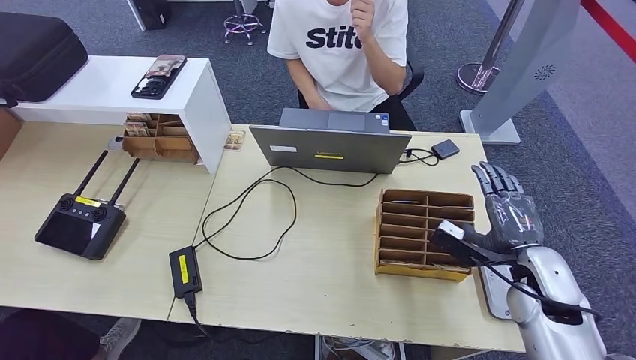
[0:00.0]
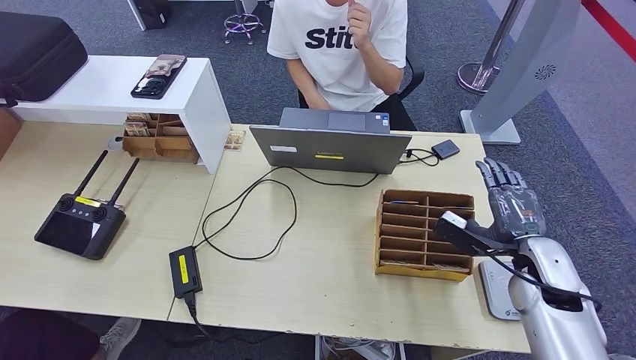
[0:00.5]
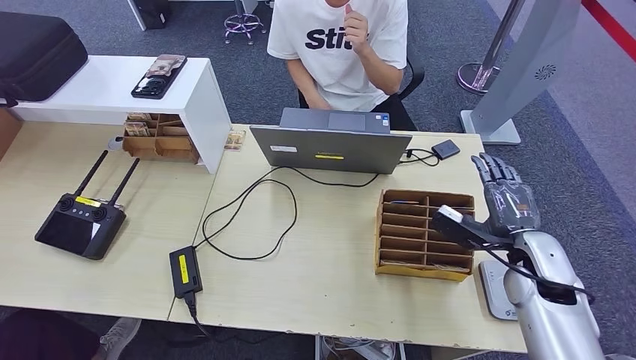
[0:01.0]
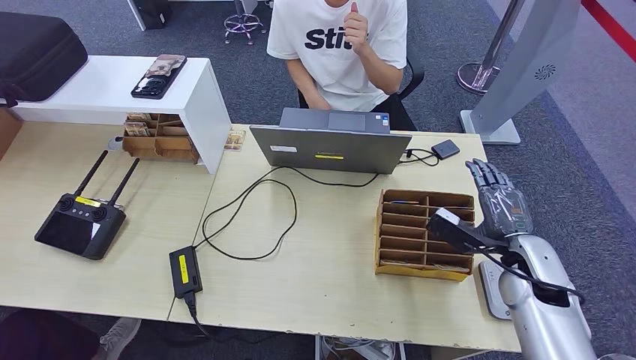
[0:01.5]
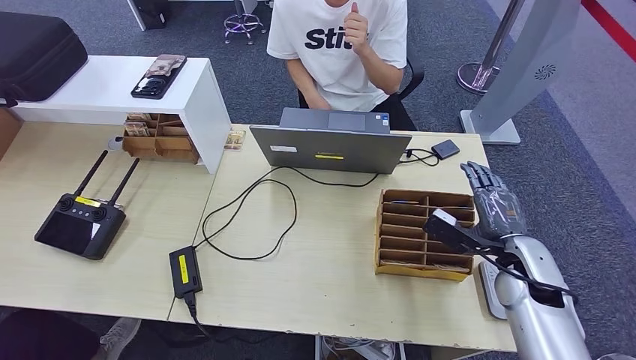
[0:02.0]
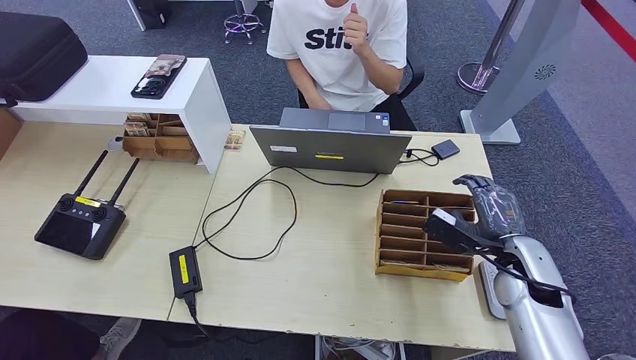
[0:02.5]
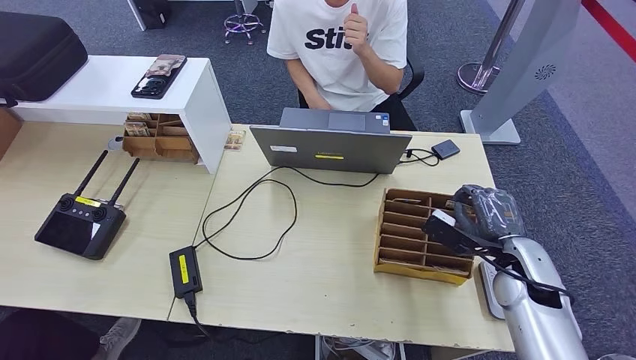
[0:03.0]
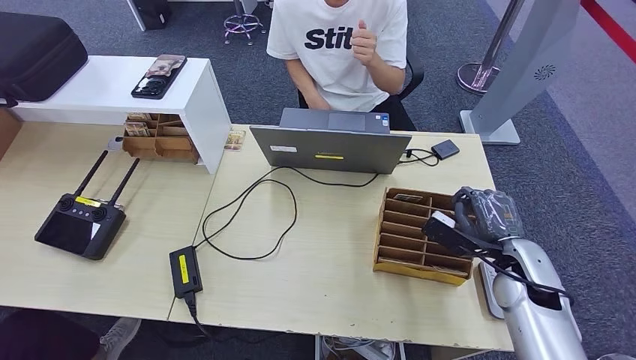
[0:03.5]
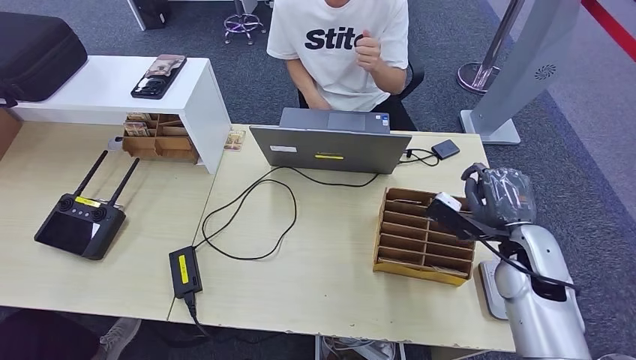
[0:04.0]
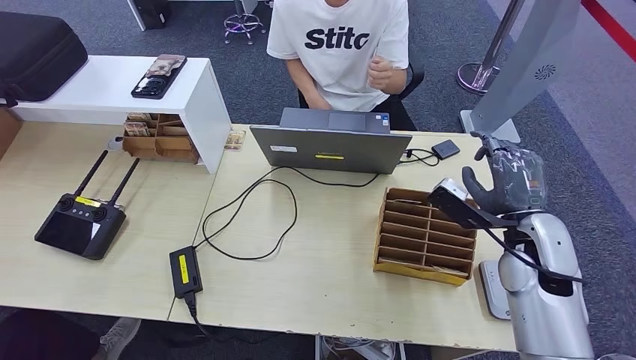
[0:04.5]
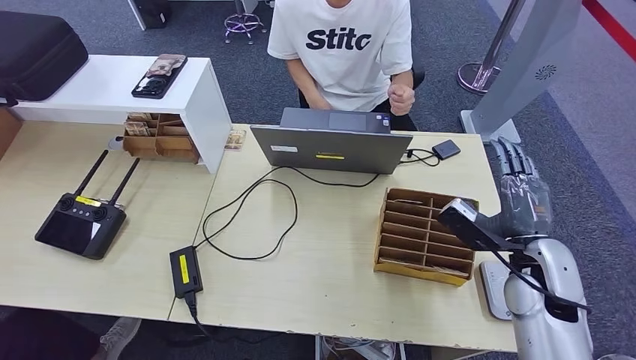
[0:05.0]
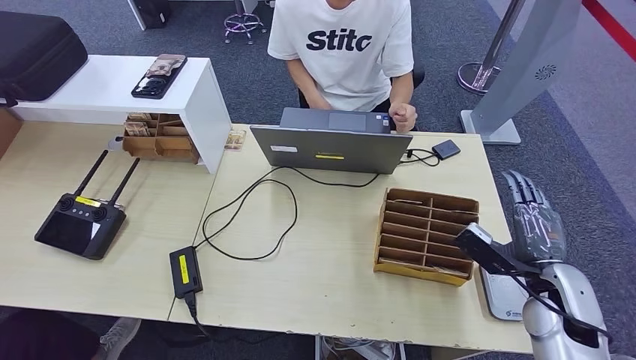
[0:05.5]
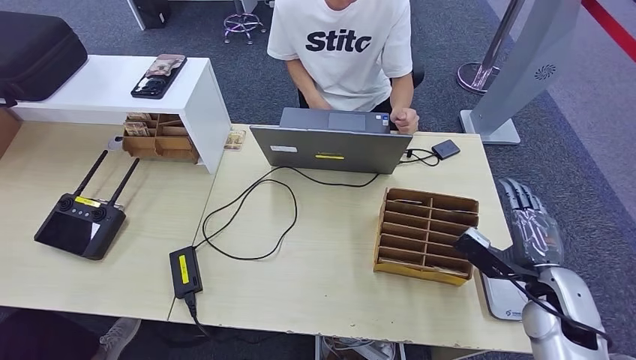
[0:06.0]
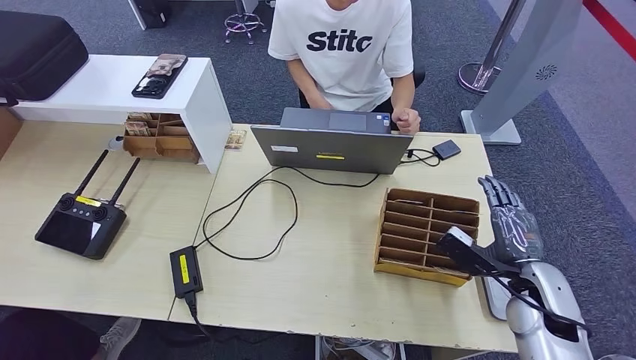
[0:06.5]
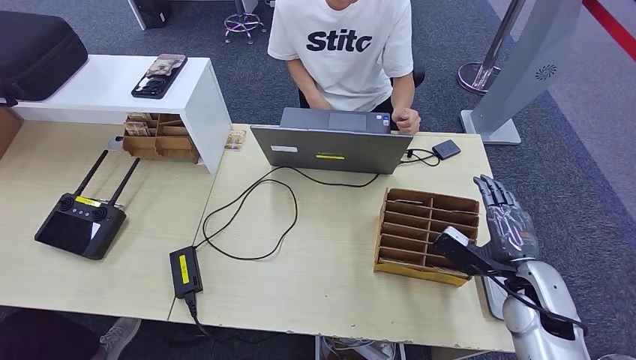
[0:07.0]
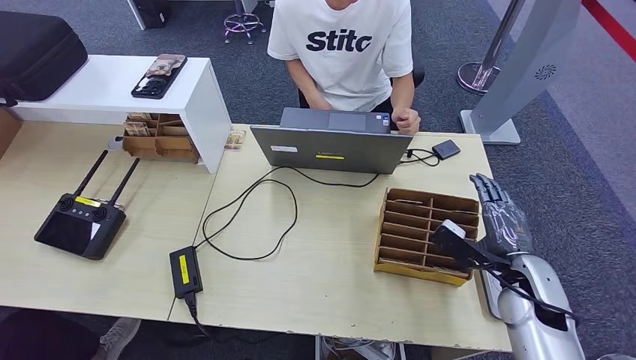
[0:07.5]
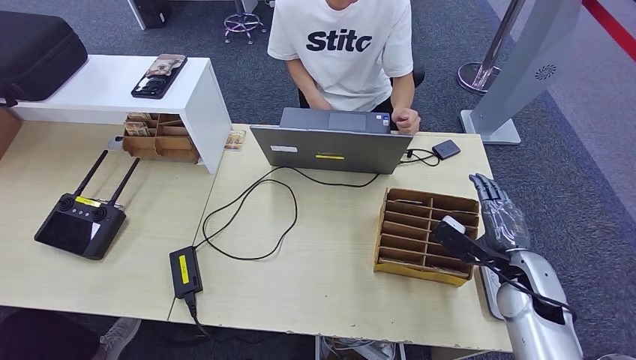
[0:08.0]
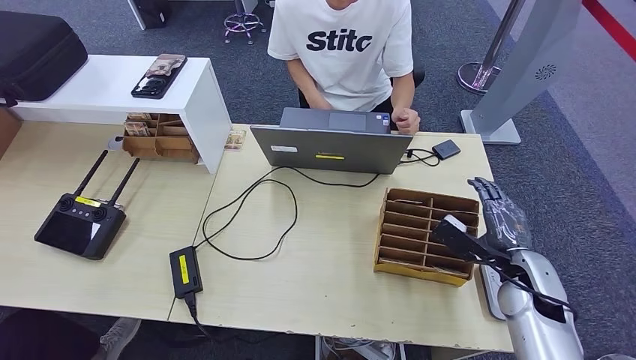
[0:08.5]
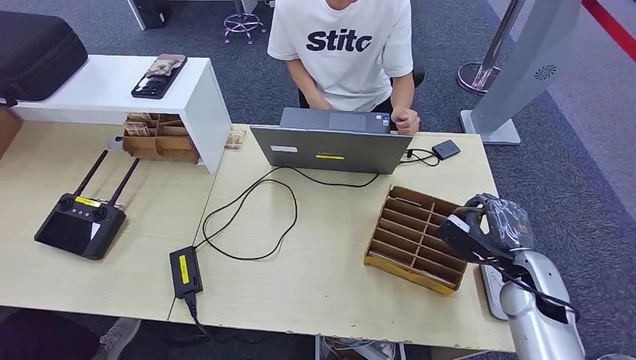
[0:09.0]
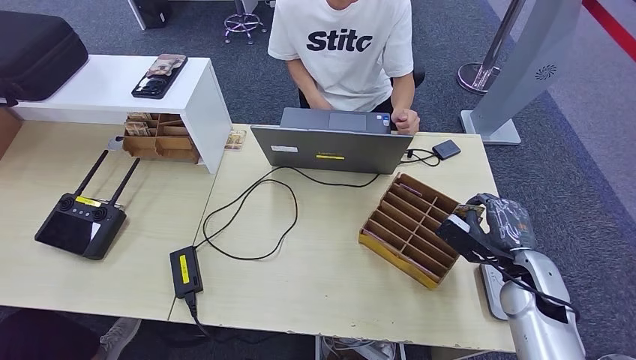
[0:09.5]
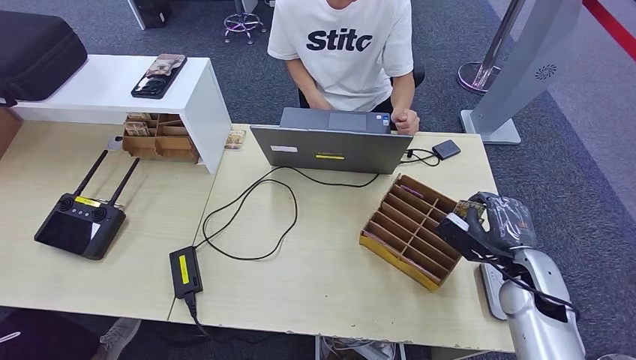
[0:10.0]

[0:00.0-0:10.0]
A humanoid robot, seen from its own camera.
0:00.0 to 0:04.0: There are only small adjustments of the hands.
0:04.0 to 0:06.0: The right hand travels backward by some 5 cm.
0:06.0 to 0:08.0: The hands stay close to where they were, moving slightly.
0:08.0 to 0:10.0: Both hands stay about where they are.

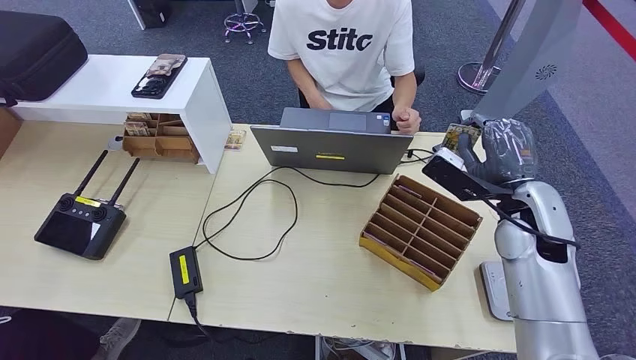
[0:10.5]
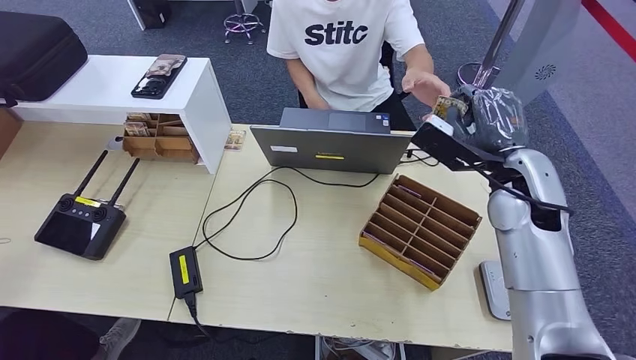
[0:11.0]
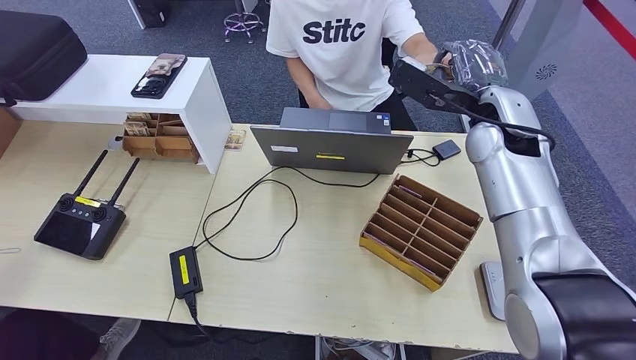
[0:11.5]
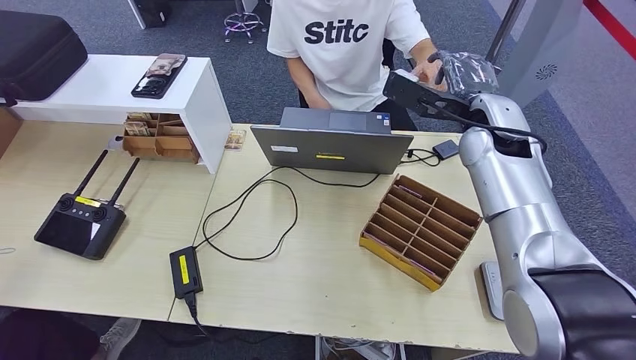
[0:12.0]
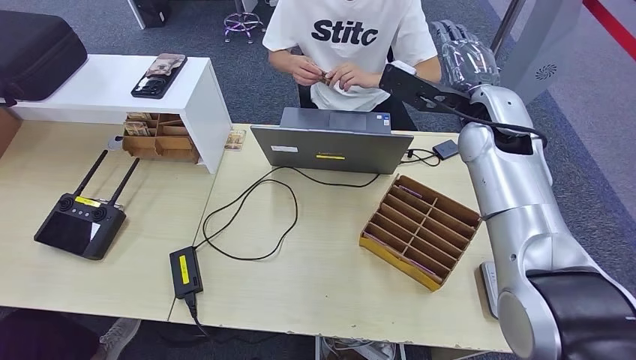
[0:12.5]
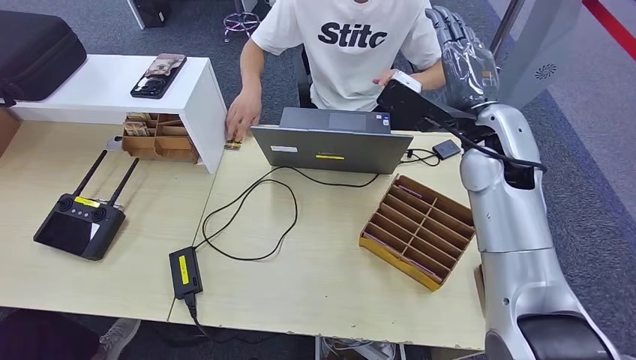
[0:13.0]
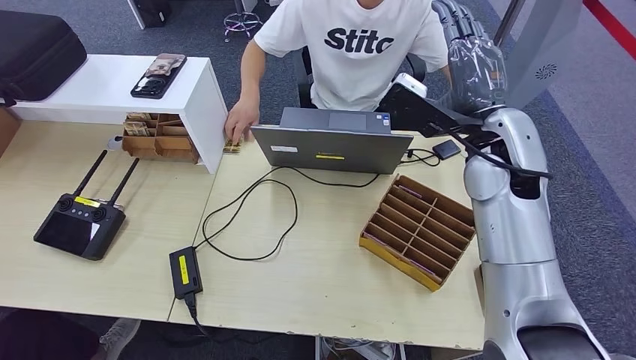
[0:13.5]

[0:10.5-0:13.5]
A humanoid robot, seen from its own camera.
Step, 0:11.5 to 0:13.5: Hand the room key to the person.
0:10.5 to 0:12.0: The right hand goes roughly 15 cm forward, upward and to the left.
0:12.0 to 0:13.5: The right hand travels backward by about 5 cm.
